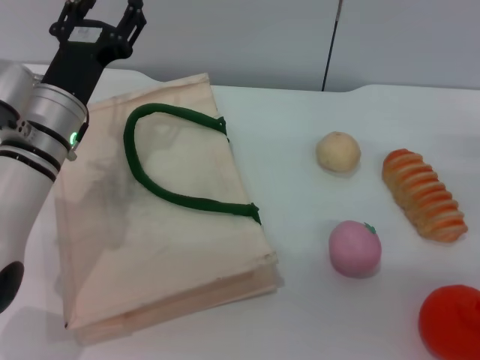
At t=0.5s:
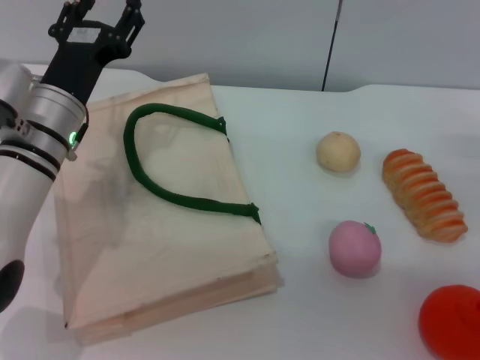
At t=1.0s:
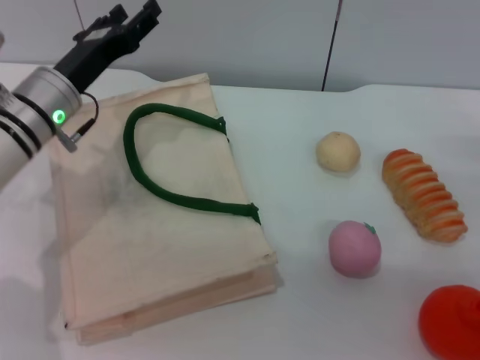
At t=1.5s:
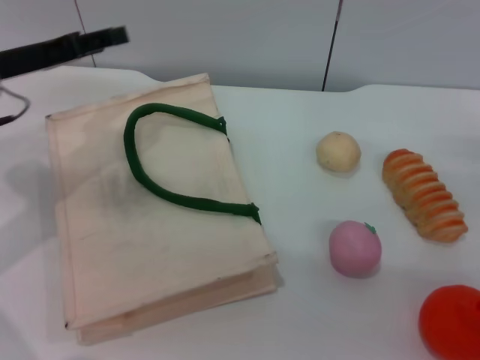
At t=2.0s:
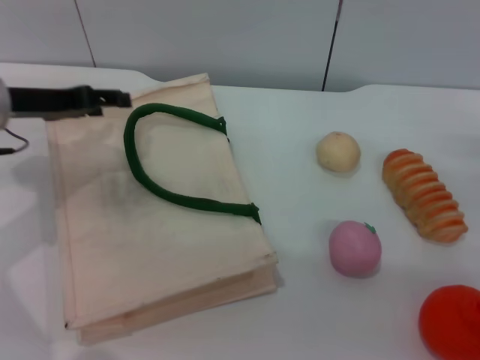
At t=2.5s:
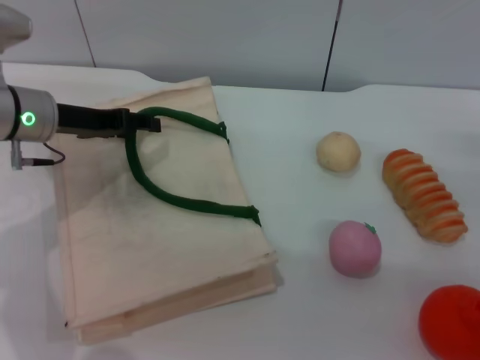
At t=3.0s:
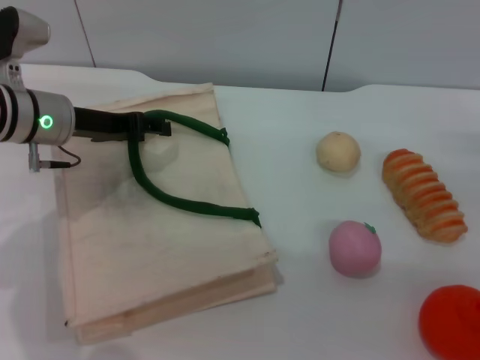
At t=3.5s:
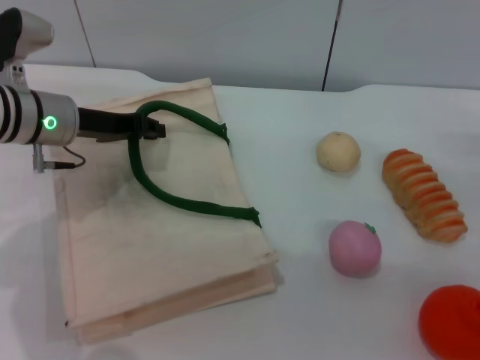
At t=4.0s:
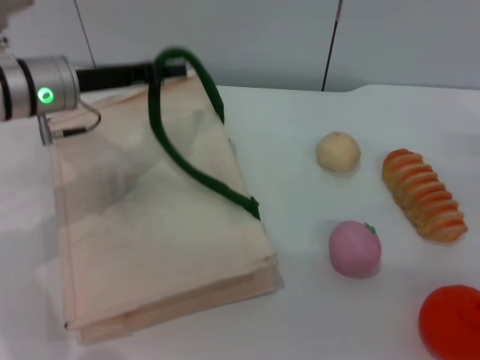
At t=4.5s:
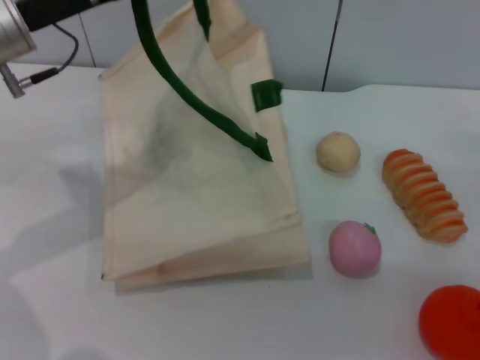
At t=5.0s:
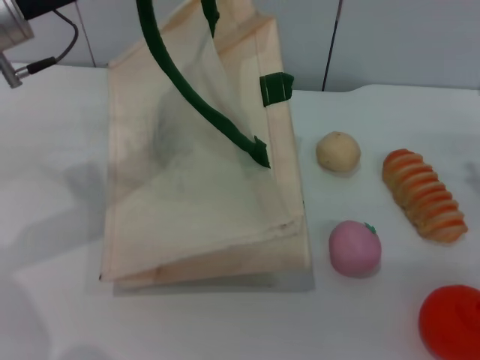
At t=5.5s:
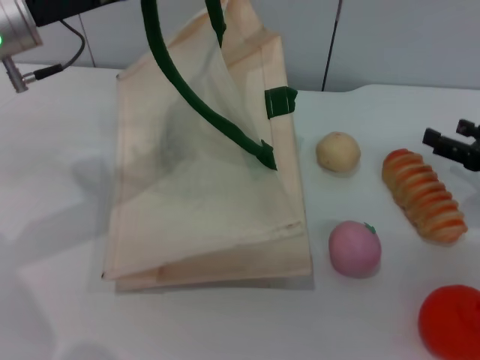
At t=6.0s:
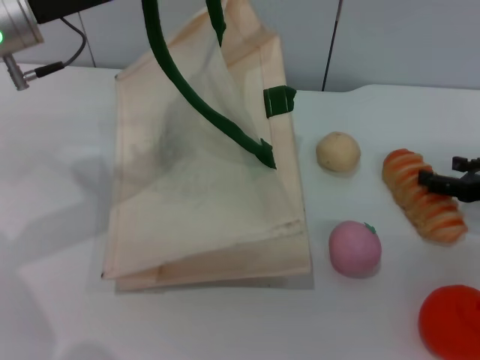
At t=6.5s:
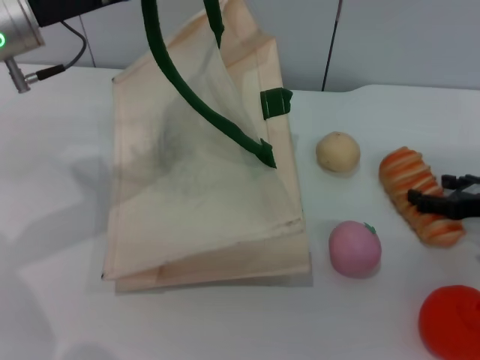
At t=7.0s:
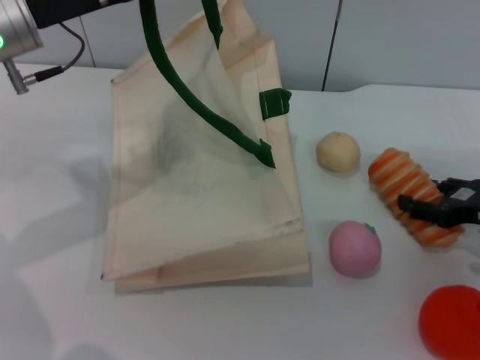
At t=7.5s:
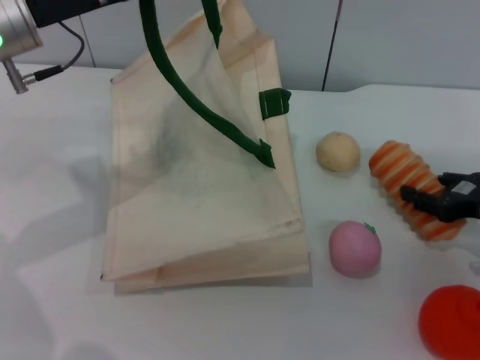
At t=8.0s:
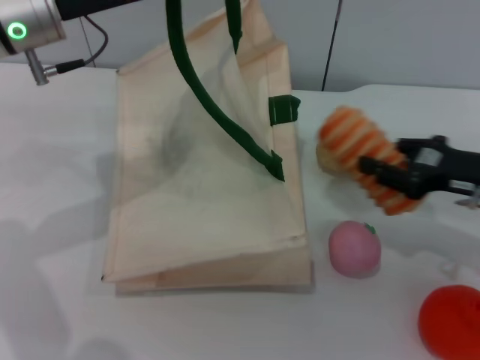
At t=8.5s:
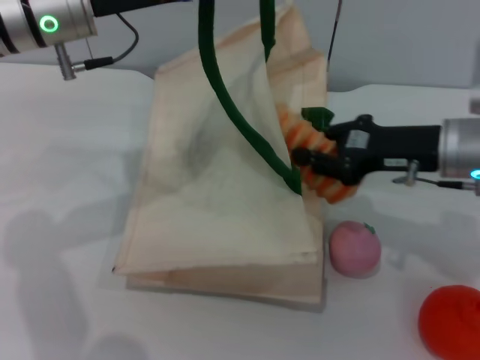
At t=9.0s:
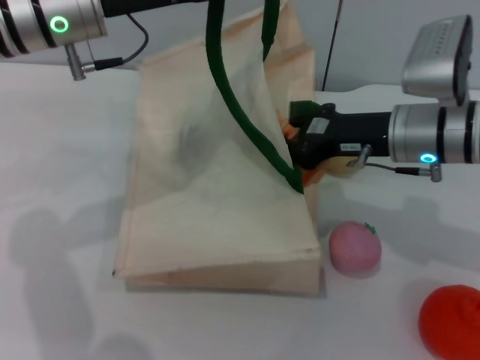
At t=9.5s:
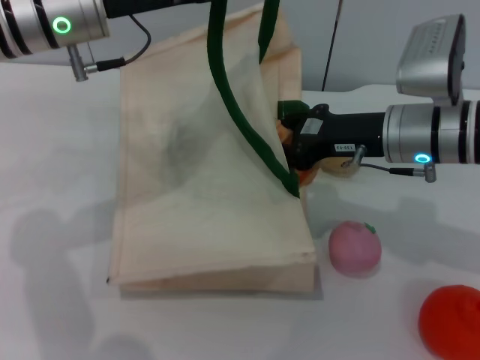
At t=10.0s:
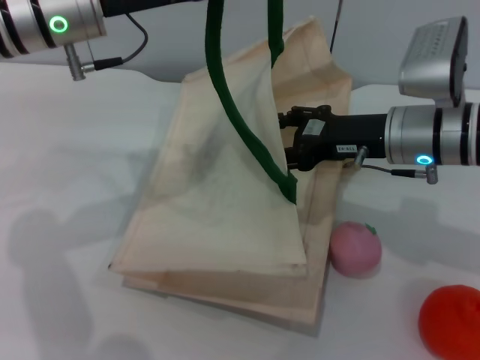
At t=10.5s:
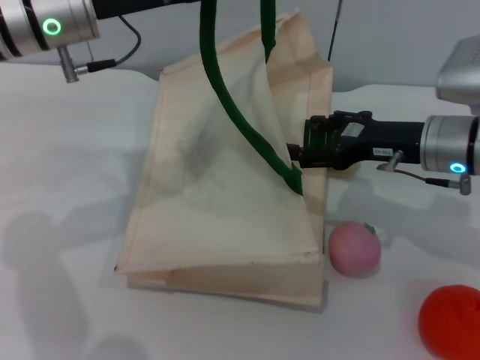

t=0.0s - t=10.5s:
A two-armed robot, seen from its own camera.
Task of the whole recording: pick up the bread from the table and place it in the white handbag.
Step, t=0.0s - t=5.0s: Lift the woven bag with the left gripper to open it.
Step, t=5.5s - t=7.5s: Pick up the bread with the right gripper.
t=0.0s - t=2.0s: The left gripper heads to the left and upward, covering approximately 10 cm.
t=2.0s - t=4.0s: The left gripper heads to the right, covering roughly 5 cm, and closes up.
t=4.0s - t=6.5s: The left gripper is displaced upward by some 5 cm.
t=6.5s - t=8.5s: The right gripper goes approximately 15 cm to the left and upward, and closes up. The left gripper moves roughly 5 cm.
t=8.5s - t=10.5s: The right gripper opens its fingers.

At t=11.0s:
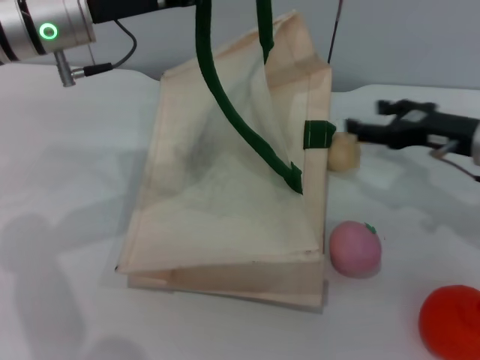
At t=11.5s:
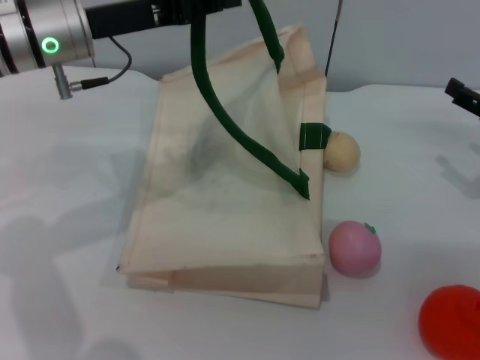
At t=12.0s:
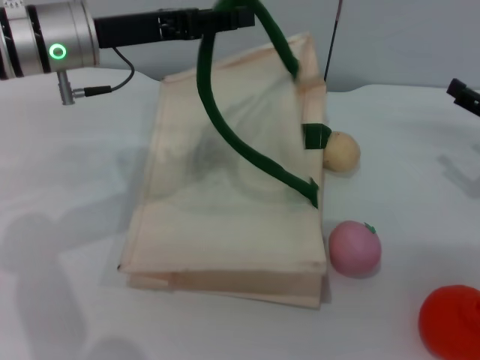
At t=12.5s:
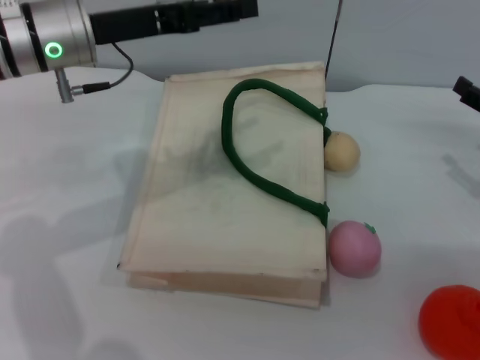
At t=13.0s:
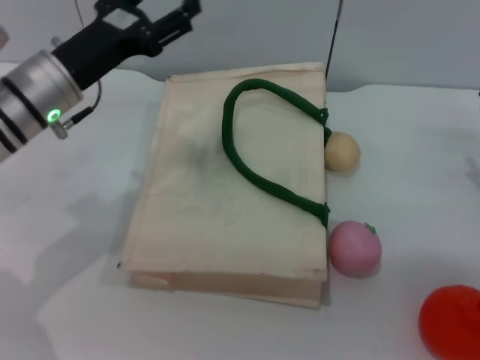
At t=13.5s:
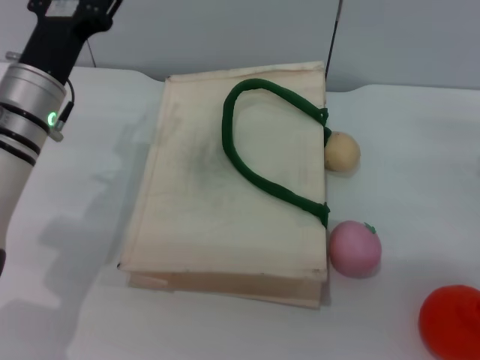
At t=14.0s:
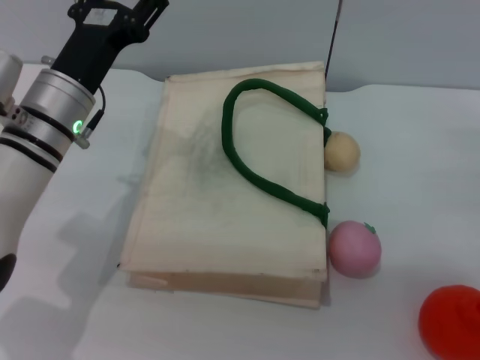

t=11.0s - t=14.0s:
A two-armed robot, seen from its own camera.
Task of the whole recording: pick up the bread from the table and place it in the white handbag.
Step, t=11.0s - t=12.0s: Lower the woven bag with the left gripper to close it.
t=11.0s - t=12.5s: The left gripper opens. The right gripper moves to the right, some 10 cm.
t=12.5s - t=14.0s: The right gripper ends up some 5 cm from where it was; the left gripper moves downward, roughly 10 cm.

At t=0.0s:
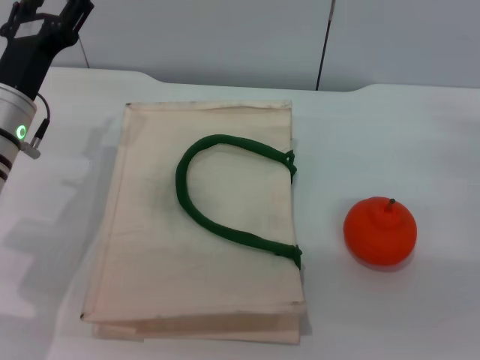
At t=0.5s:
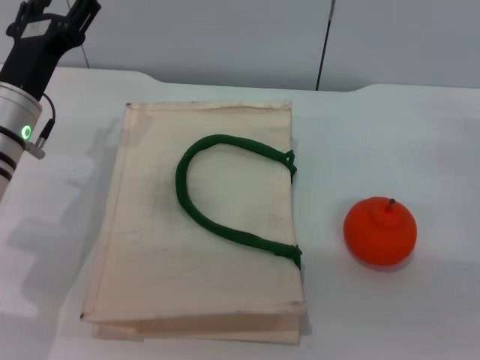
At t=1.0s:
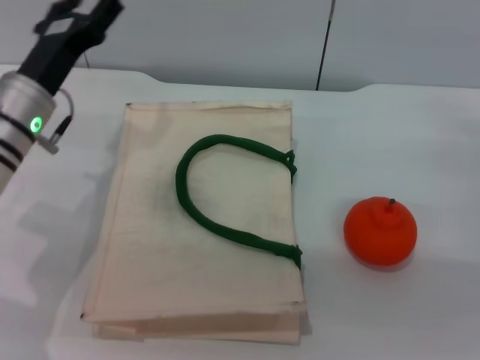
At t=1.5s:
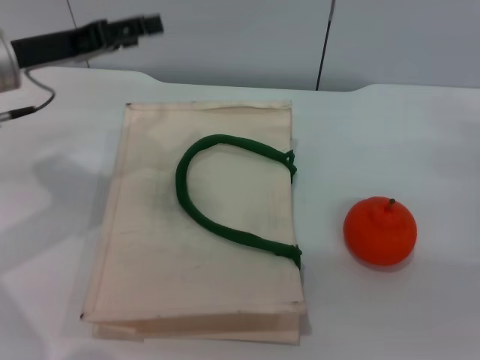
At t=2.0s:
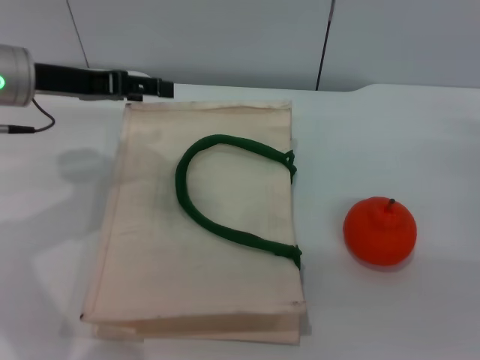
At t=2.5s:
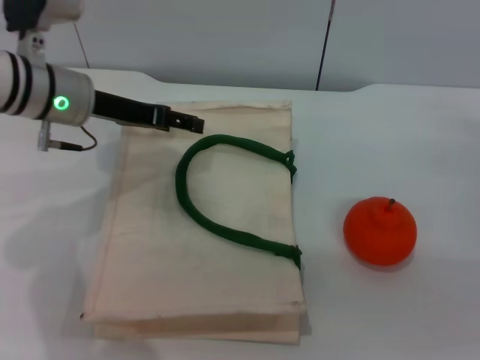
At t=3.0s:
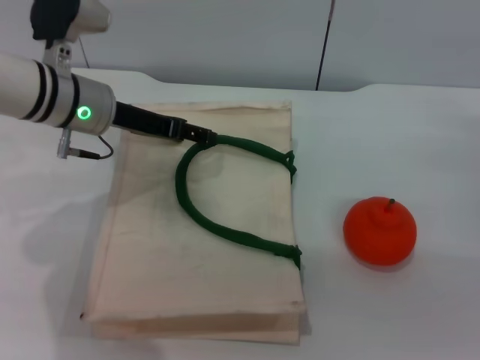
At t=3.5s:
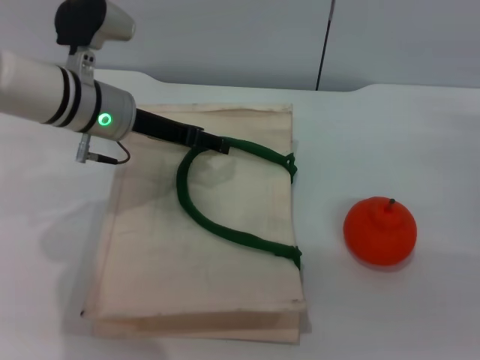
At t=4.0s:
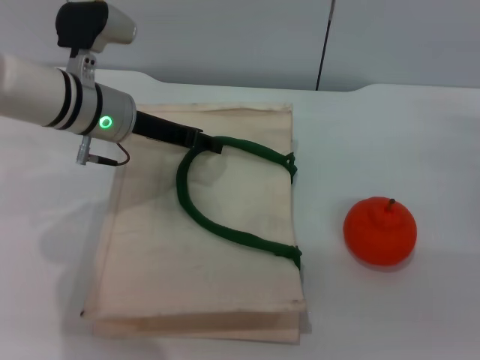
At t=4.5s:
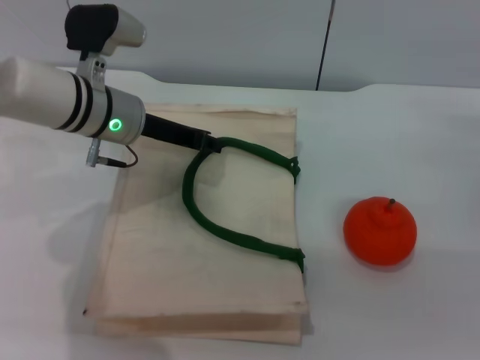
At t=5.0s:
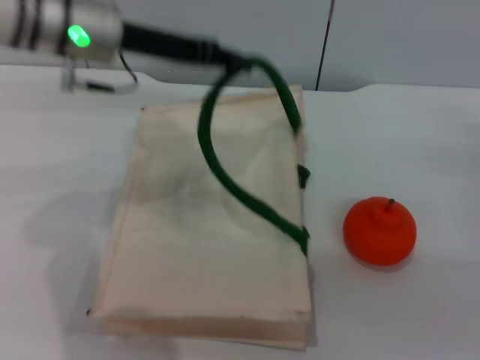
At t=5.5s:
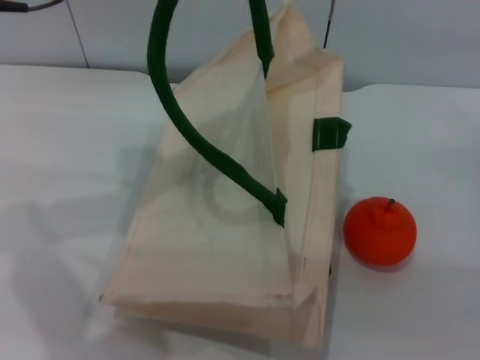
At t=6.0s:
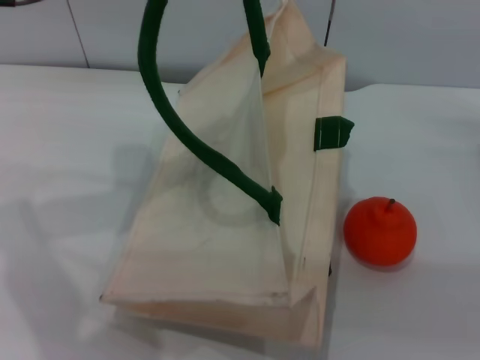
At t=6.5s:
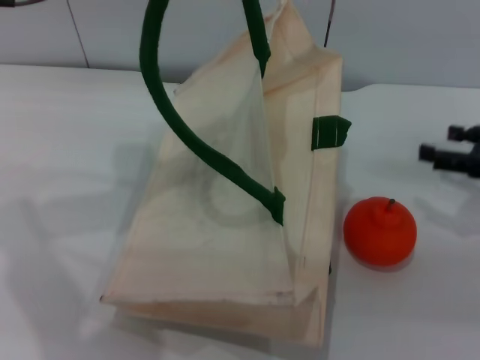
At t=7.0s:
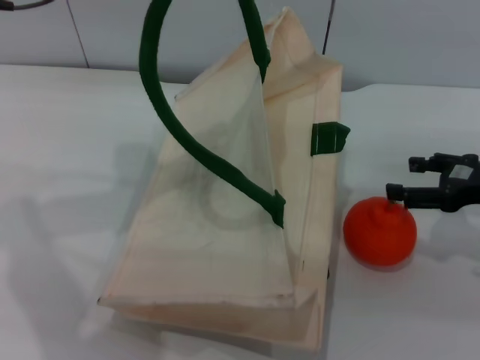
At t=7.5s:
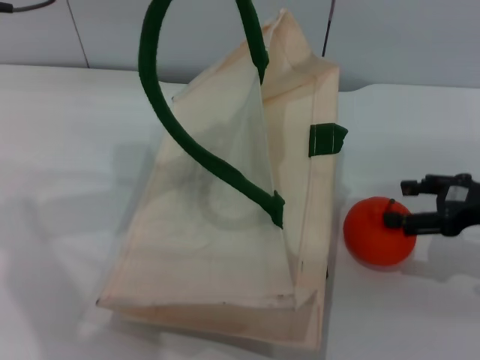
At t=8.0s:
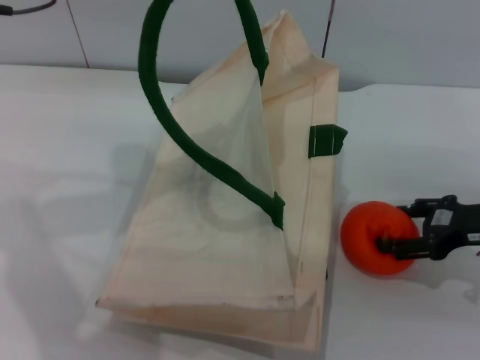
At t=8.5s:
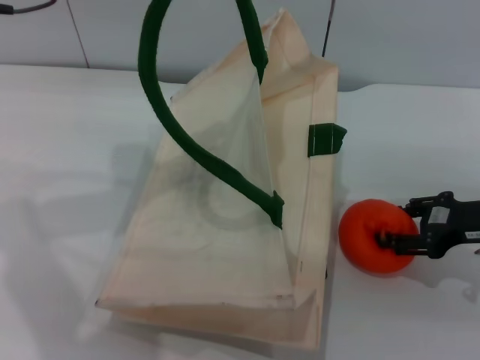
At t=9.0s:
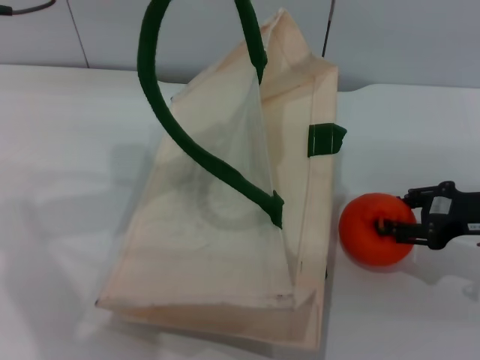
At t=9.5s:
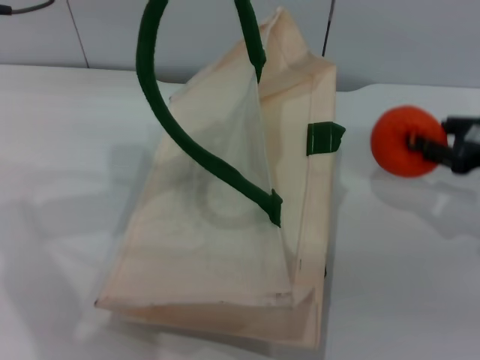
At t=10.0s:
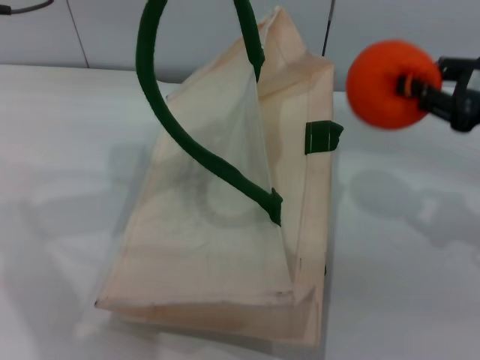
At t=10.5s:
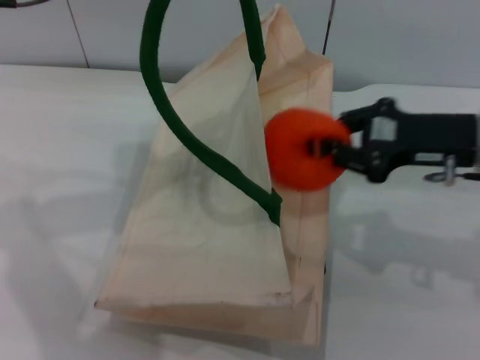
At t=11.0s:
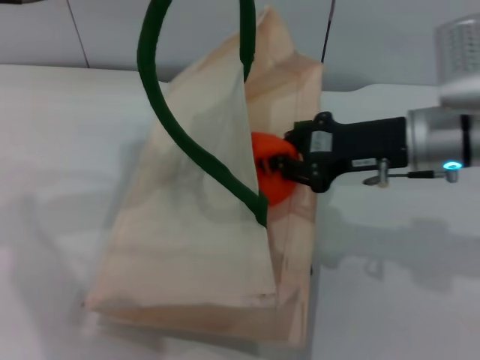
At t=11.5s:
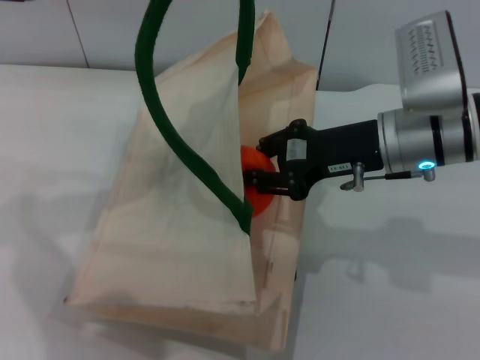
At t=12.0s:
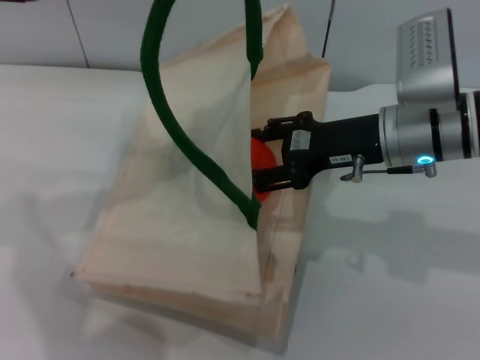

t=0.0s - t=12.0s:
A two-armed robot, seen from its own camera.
Task of the whole recording: pick up the orange from the table and place it in the white handbag.
Step, t=0.0s - t=5.0s: Lift the woven bag with the left gripper to open it.
Step, t=5.5s - t=9.0s: Pick up the orange with the right gripper.
t=0.0s - t=2.0s: The left gripper is displaced upward by some 10 cm.
t=2.0s - t=4.0s: The left gripper is displaced to the right and downward by roughly 10 cm.
t=4.0s - t=6.0s: The left gripper moves upward, approximately 20 cm, and closes up.
t=6.0s - t=8.0s: The right gripper shifts approximately 5 cm to the left.
t=8.0s - t=10.0s: The right gripper heads upward, covering approximately 10 cm, and closes its fingers.
t=10.0s - t=12.0s: The right gripper goes about 15 cm to the left.
